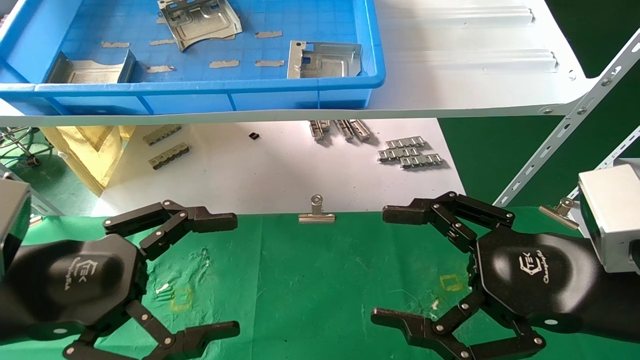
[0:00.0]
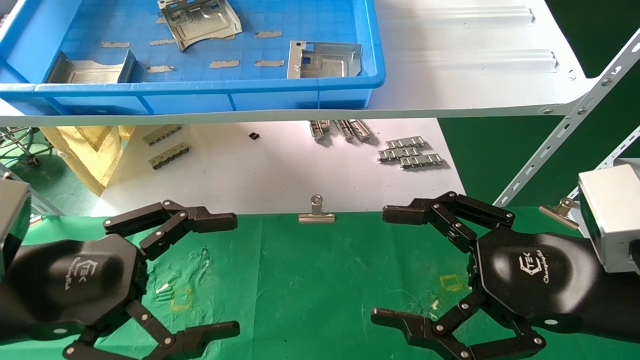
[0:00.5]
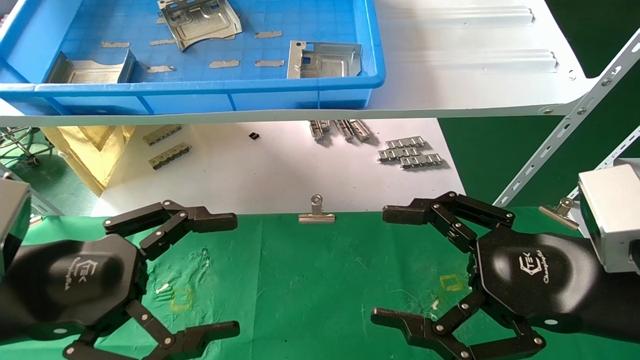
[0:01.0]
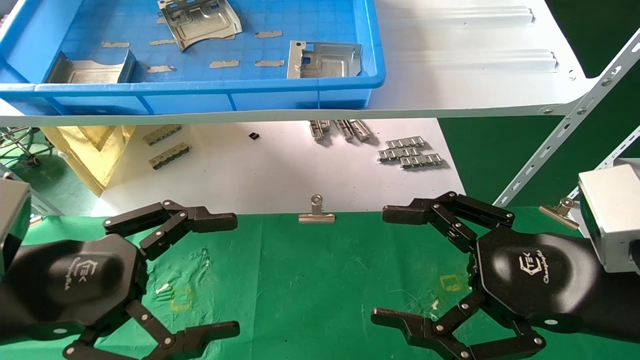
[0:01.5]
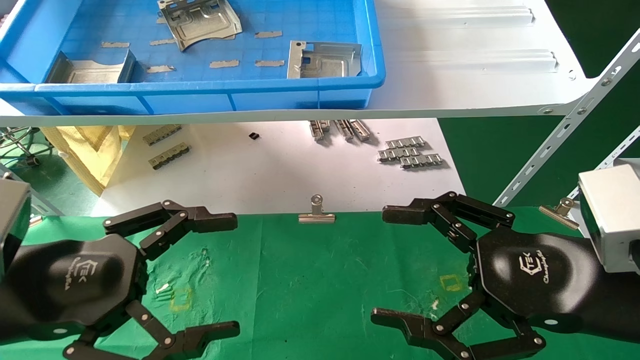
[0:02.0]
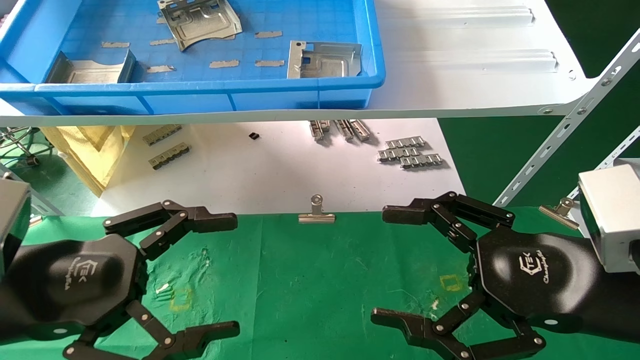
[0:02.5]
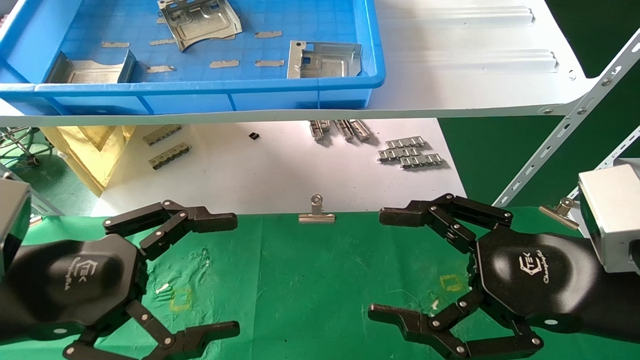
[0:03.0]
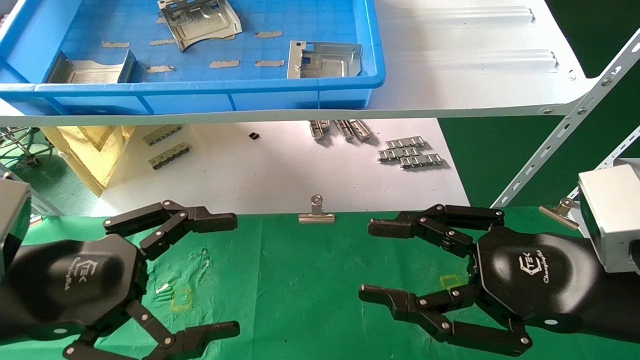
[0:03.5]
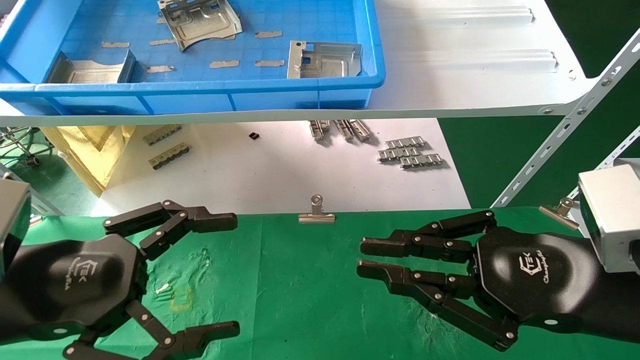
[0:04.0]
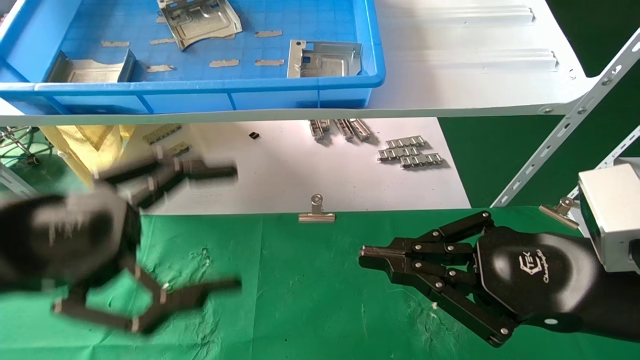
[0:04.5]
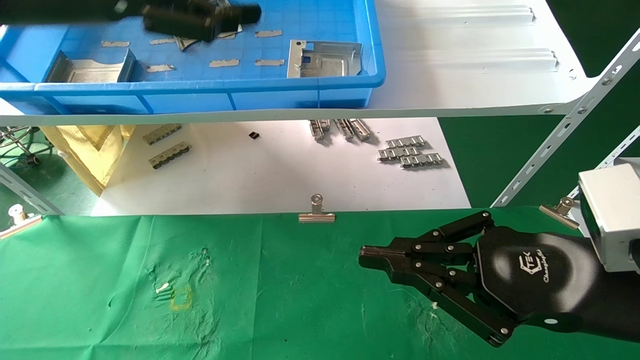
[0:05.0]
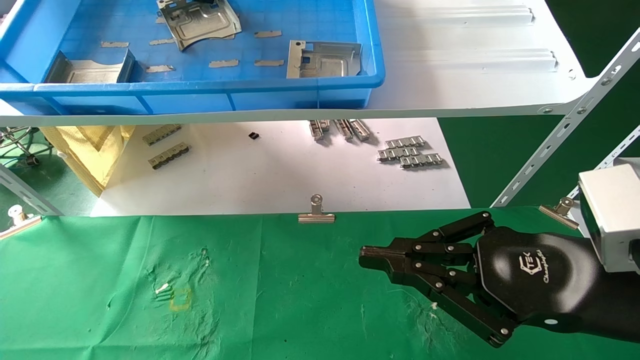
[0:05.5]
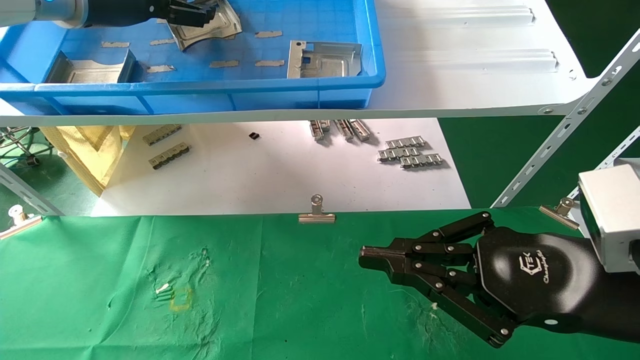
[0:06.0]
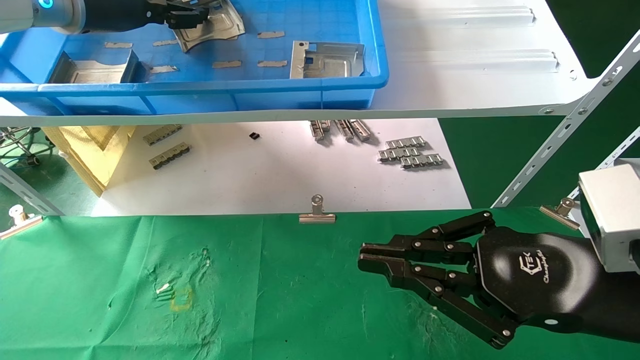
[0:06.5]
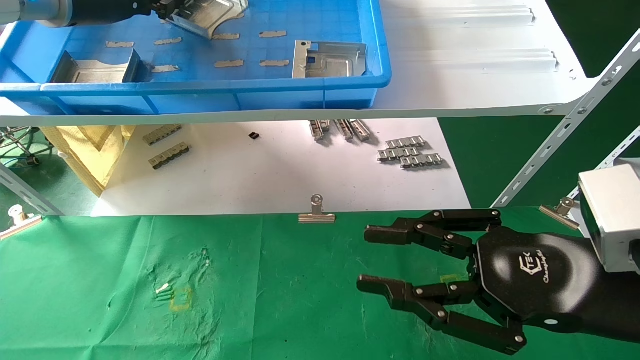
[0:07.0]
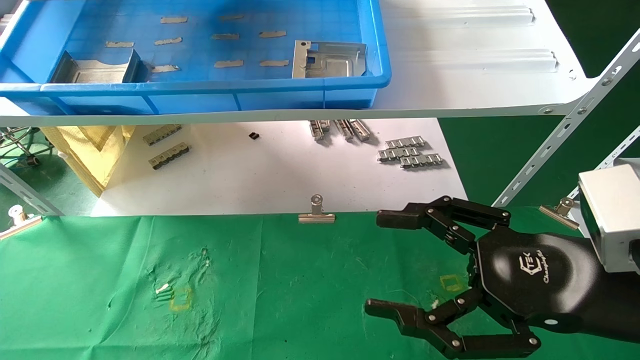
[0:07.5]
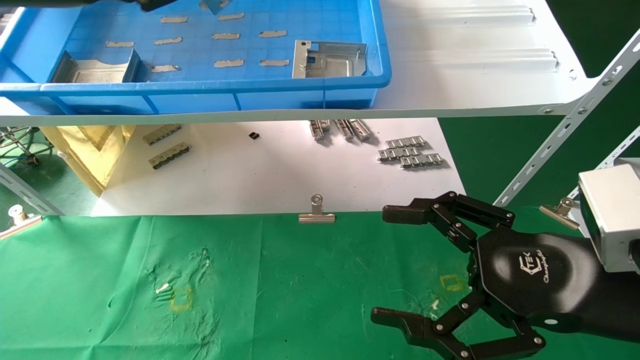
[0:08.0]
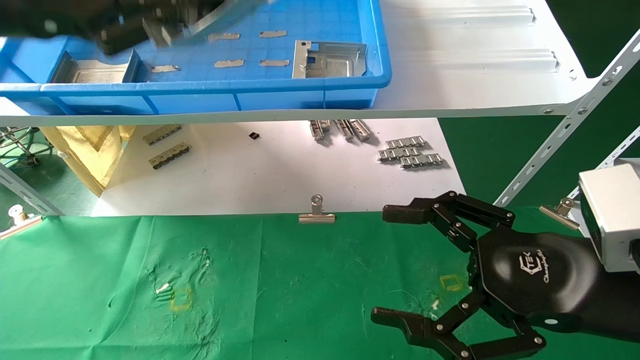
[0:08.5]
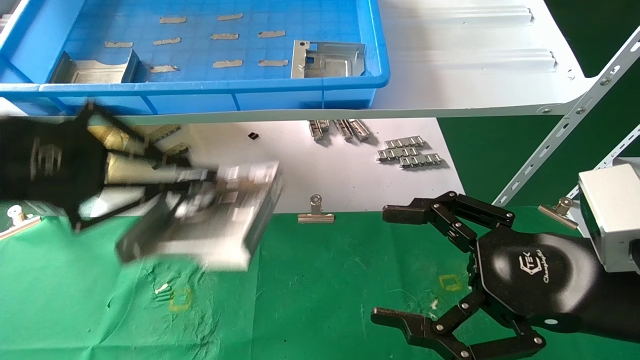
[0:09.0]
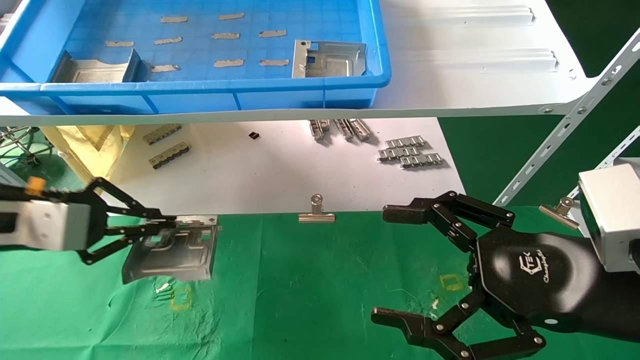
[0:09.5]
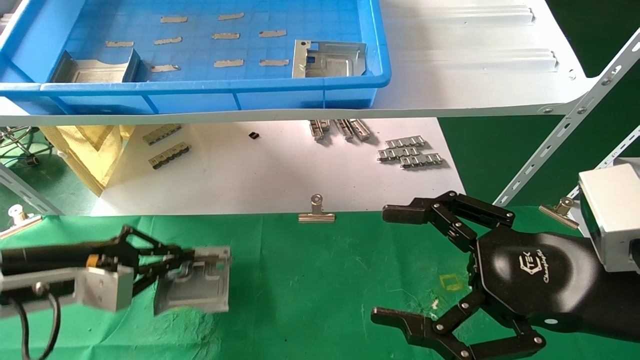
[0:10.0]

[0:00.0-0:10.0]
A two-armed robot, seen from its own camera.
Task of the whole recording: use the mechanical arm to pick up the parts and place them on the table.
Step, 0:03.0 to 0:06.5: Pick up the hard drive bracket from the feeding area.
0:00.0 to 0:02.0: Both grippers stay about where they are.
0:02.0 to 0:04.0: The right gripper closes.
0:04.0 to 0:06.0: The left gripper shifts roughly 35 cm upward and forward.
0:06.0 to 0:08.0: The right gripper opens. The left gripper is displaced backward by some 10 cm, and closes up.
0:08.0 to 0:10.0: The left gripper goes about 30 cm downward.

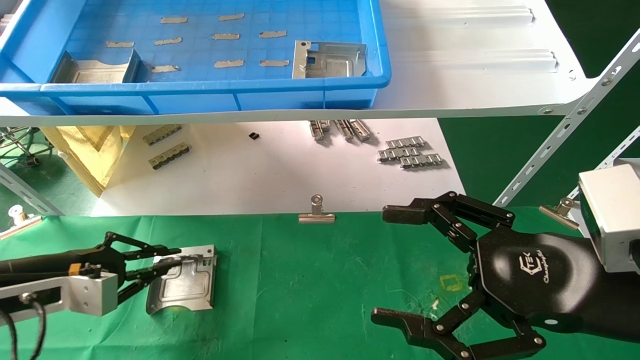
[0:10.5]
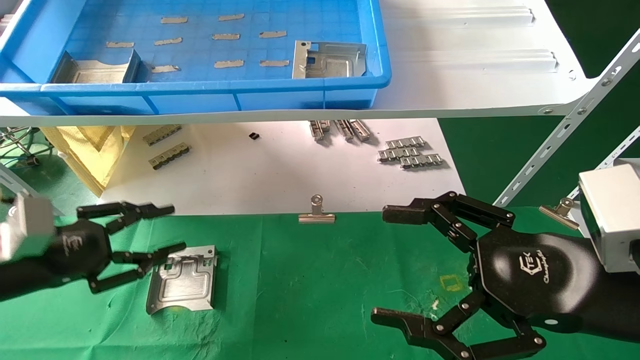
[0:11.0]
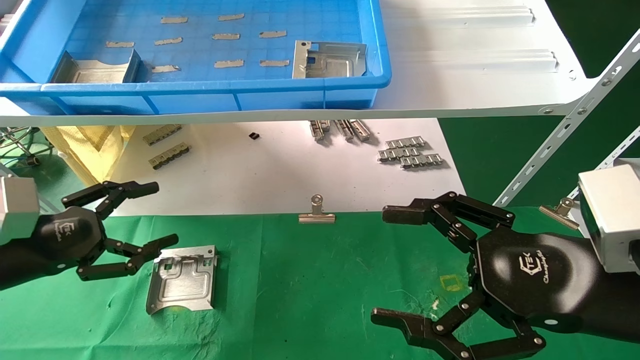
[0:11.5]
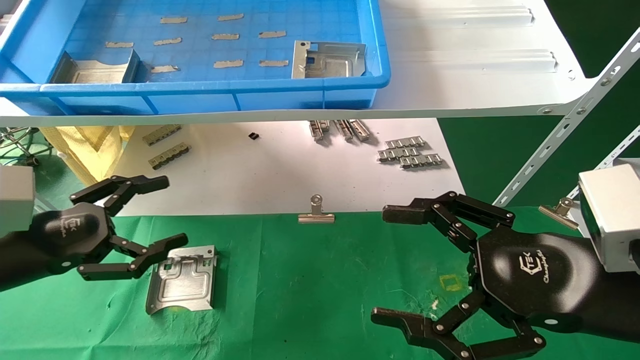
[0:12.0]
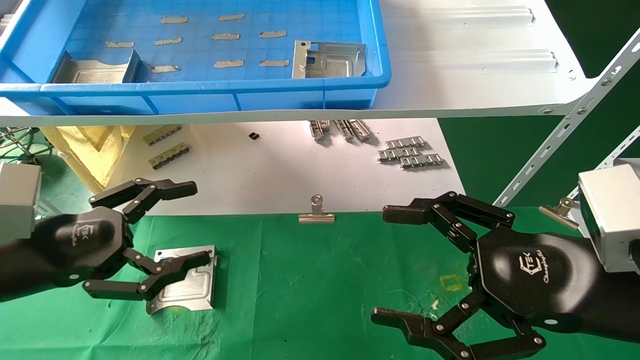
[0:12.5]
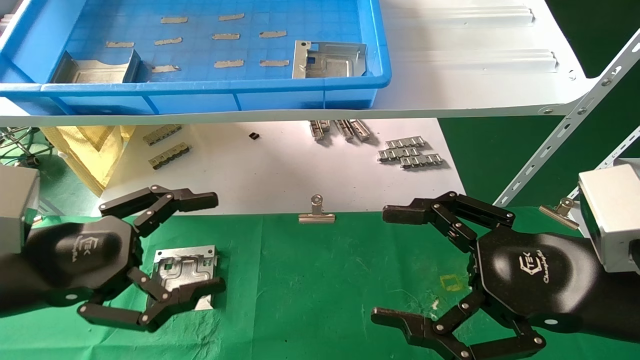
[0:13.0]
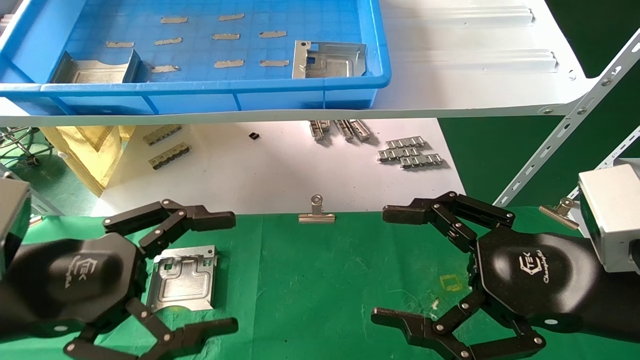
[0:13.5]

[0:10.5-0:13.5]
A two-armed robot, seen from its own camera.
Task of the whole recording: use the mechanical arm to pick up the parts and place them on the table.
0:10.5 to 0:12.0: The left gripper ends up approximately 5 cm from where it was, and opens up.
0:12.0 to 0:13.5: The left gripper heads backward and to the right, covering some 10 cm.
